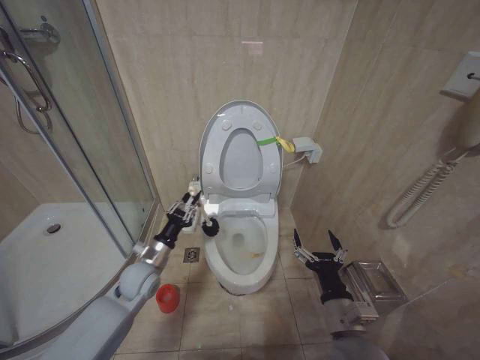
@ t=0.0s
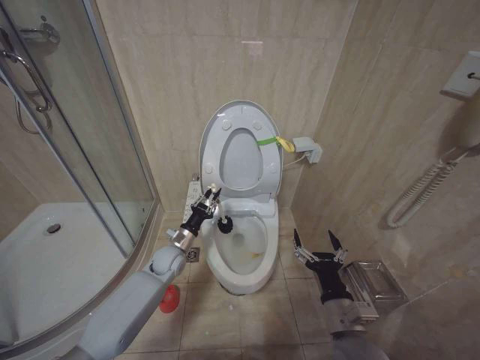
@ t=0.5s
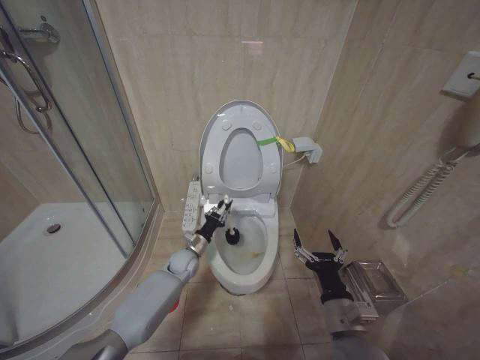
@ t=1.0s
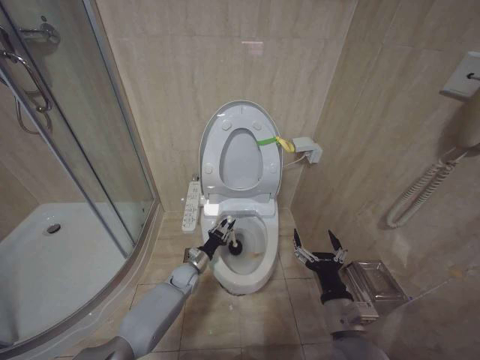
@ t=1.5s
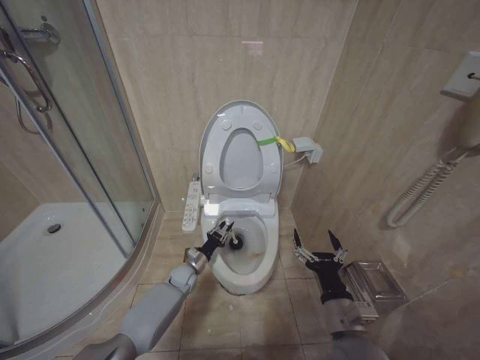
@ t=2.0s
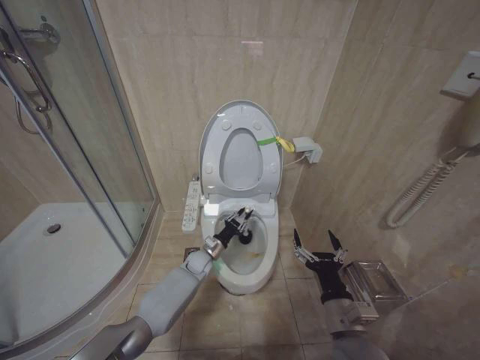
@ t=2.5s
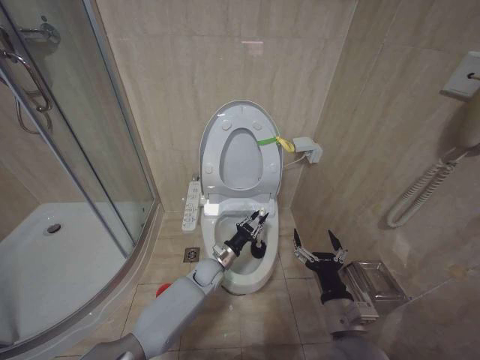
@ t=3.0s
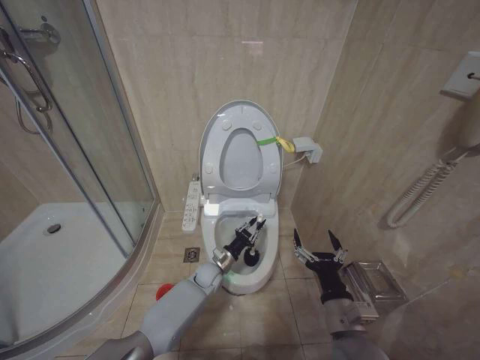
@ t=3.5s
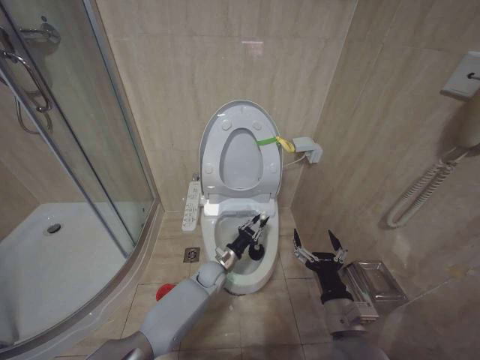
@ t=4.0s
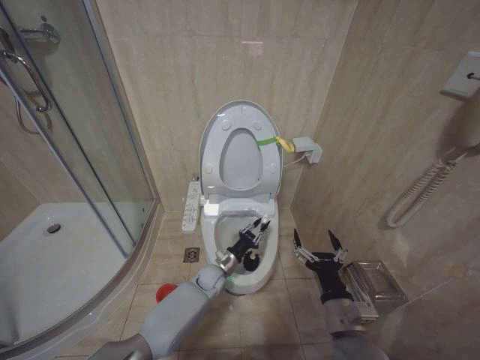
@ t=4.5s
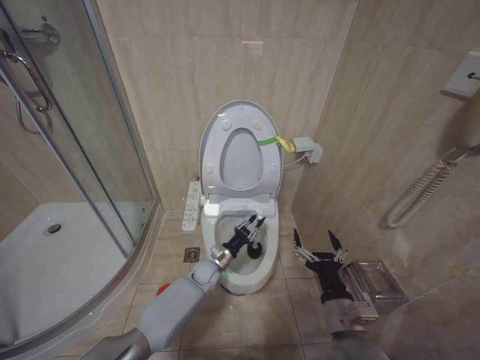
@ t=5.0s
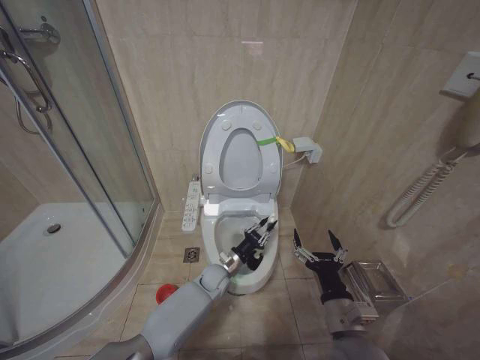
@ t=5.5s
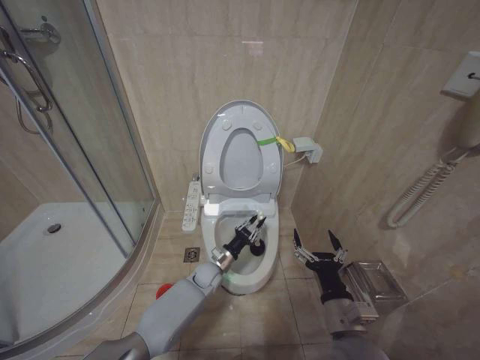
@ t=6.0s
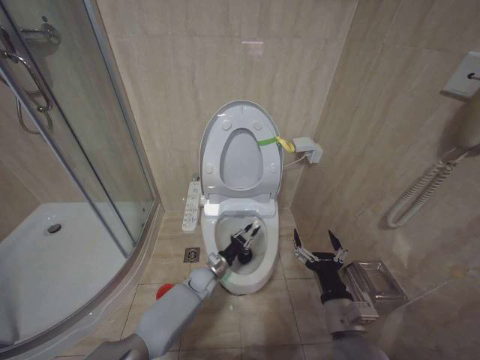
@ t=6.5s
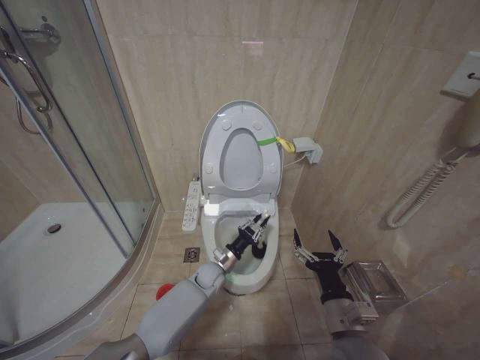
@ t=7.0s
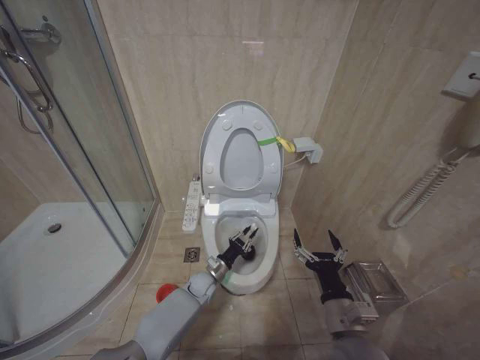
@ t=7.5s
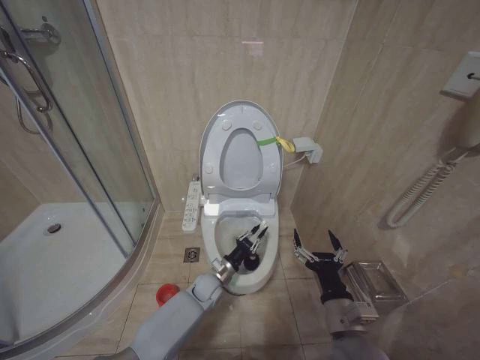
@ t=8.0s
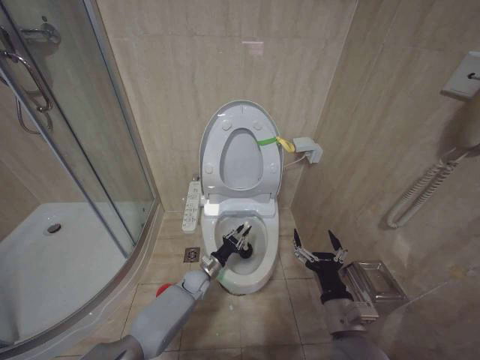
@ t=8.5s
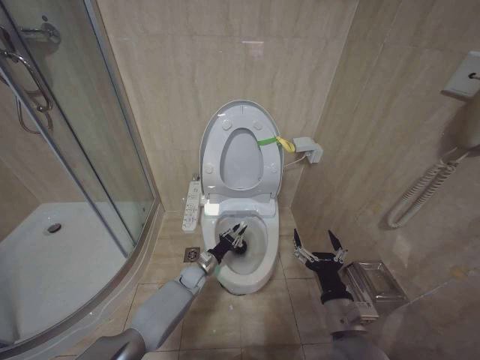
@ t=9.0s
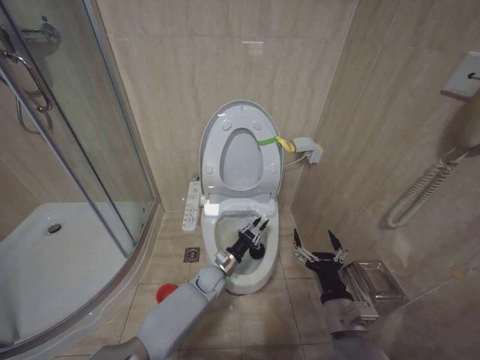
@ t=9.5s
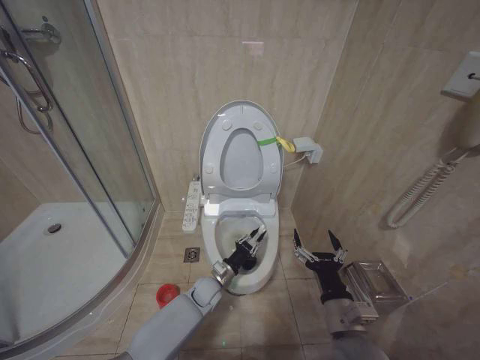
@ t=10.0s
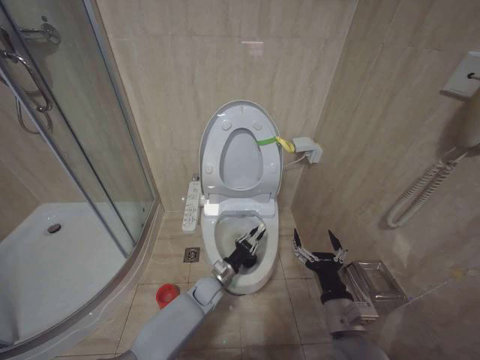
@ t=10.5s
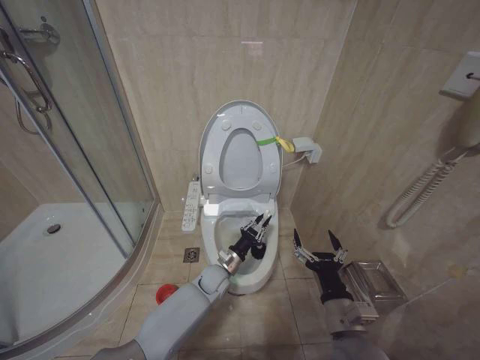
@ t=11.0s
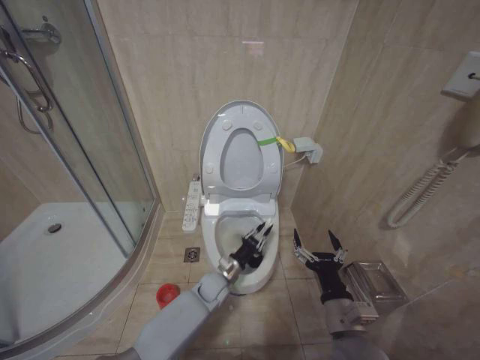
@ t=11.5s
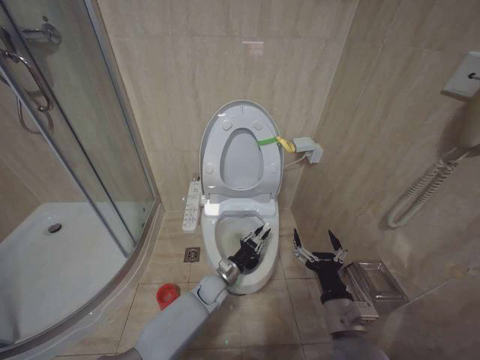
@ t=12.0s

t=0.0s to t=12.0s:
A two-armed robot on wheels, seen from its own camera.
Task of the whole recording: Open the toilet lid, clean the toilet bowl with a toilet brush, close the toilet lid, and flush.
t=0.0s to t=2.0s: The left gripper travels downward, forward and to the right by about 20 cm.
t=2.0s to t=4.0s: The left gripper heads to the right, covering some 10 cm.
t=4.0s to t=8.0s: There are only small adjustments of the grippers.
t=10.0s to t=12.0s: The grippers stay close to where they were, moving slightly.

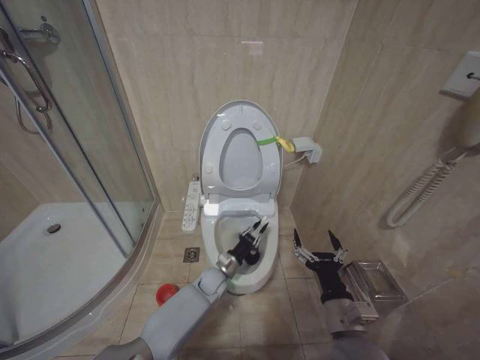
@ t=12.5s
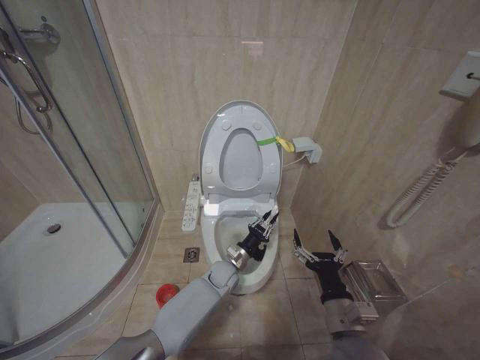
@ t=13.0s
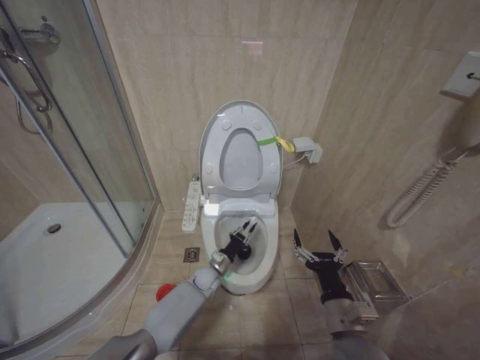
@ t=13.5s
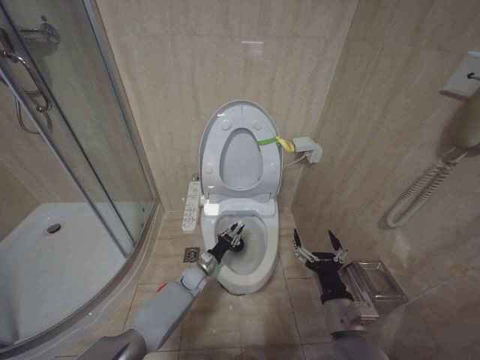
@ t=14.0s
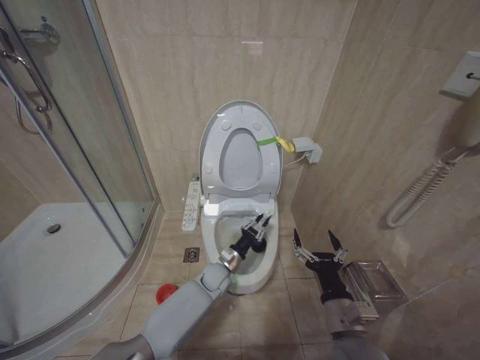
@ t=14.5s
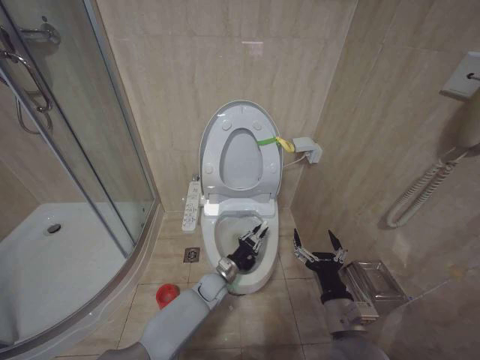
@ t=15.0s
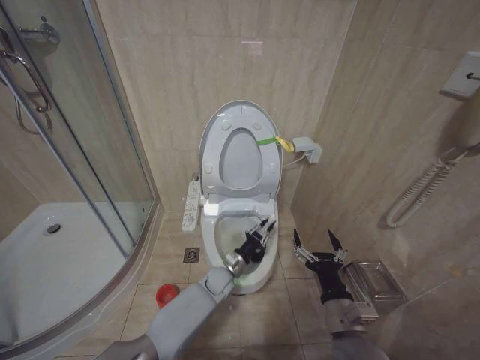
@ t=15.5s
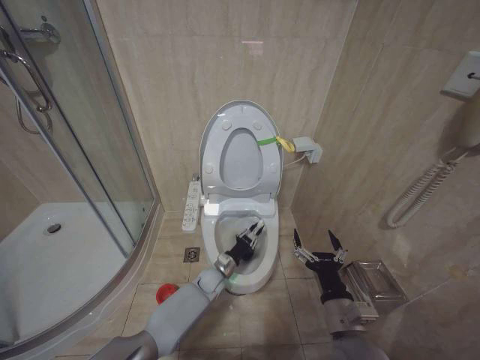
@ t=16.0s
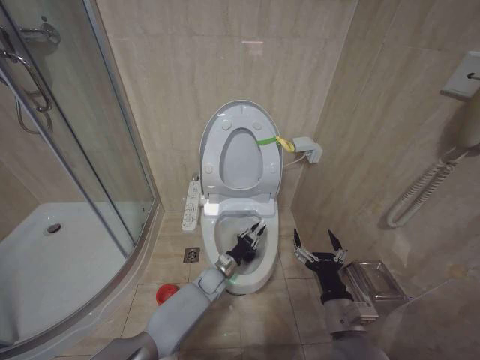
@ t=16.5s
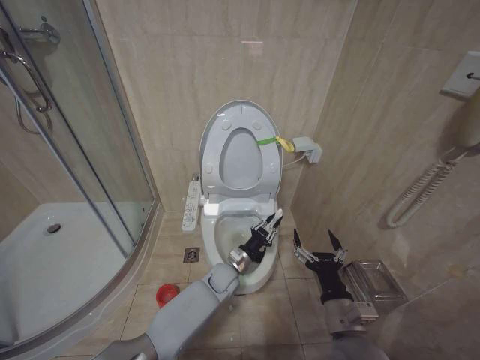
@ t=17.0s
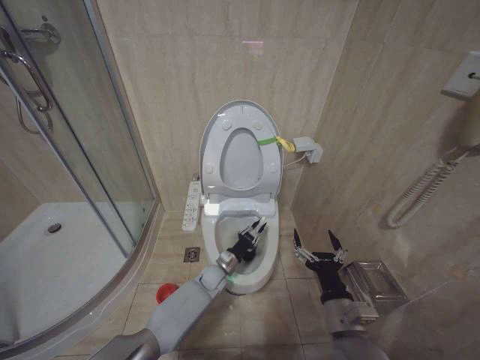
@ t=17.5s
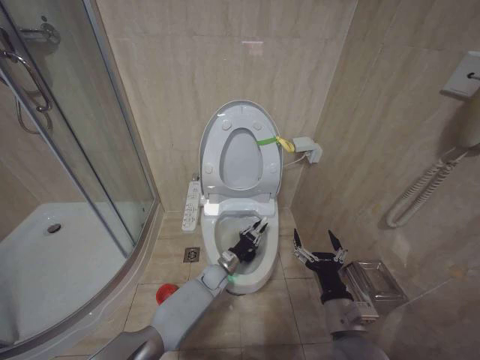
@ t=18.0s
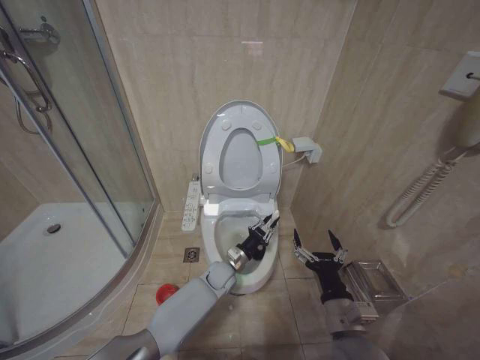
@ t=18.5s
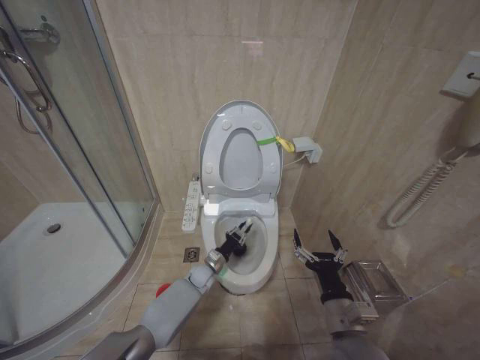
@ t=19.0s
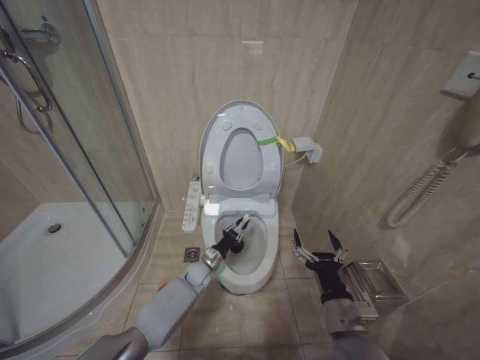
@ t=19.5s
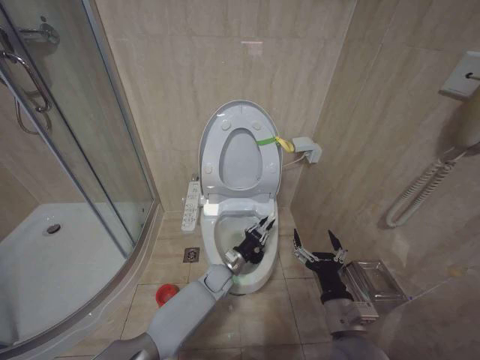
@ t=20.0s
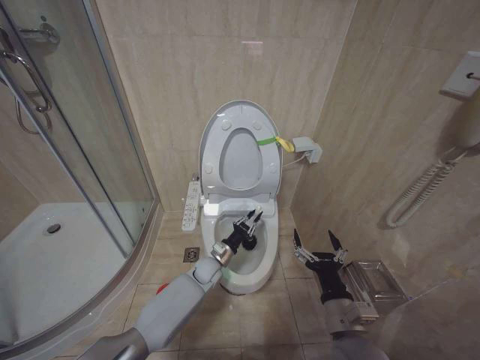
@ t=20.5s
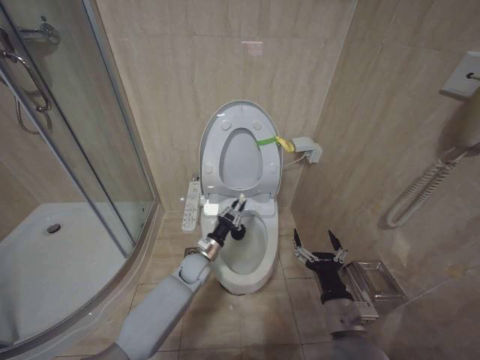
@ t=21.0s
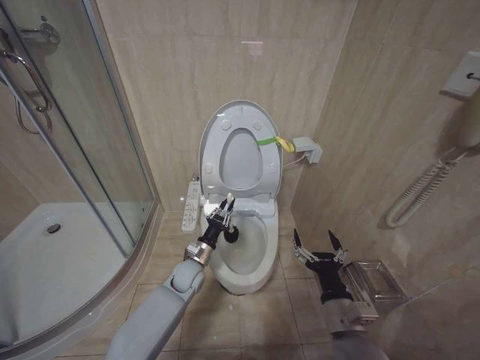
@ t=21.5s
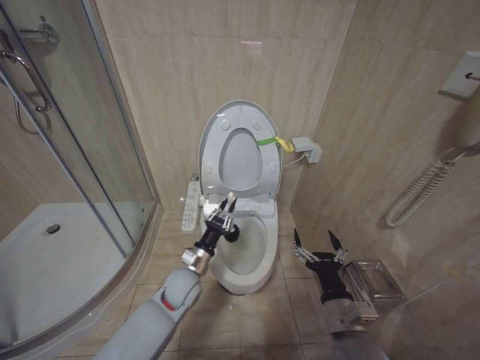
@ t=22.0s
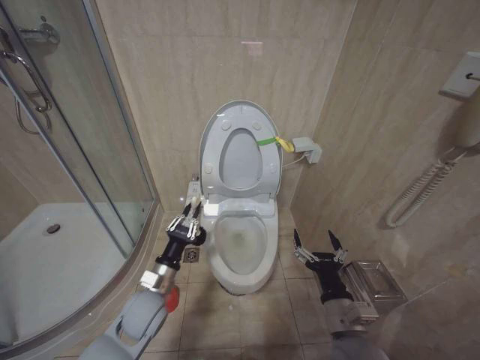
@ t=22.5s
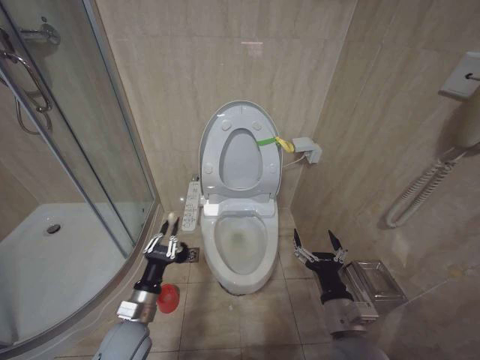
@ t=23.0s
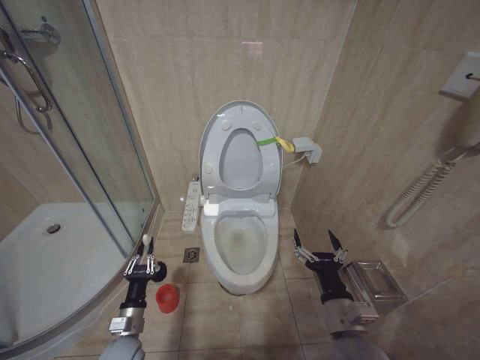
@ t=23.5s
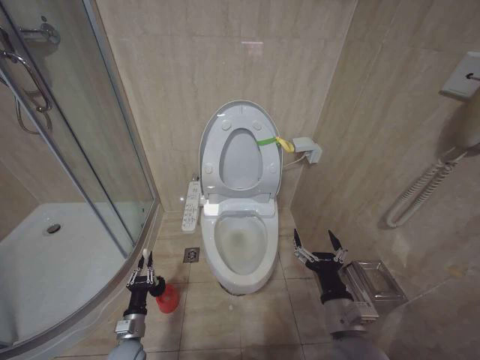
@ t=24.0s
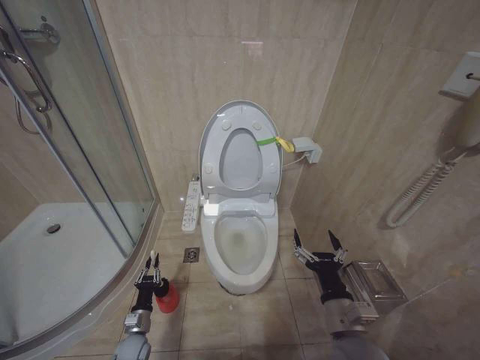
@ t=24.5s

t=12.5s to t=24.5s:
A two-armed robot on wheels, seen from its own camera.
Task of the whole recording: Open the toilet lid, clean the toilet bowl with a toilet brush, close the toilet lid, and flush.
t=12.5s to t=14.5s: The left gripper goes to the left and returns, roughly 10 cm each way.
t=14.5s to t=16.5s: There are only small adjustments of the grippers.
t=16.5s to t=18.5s: The left gripper goes up and down, approximately 5 cm each way, reversing 2 times.
t=18.5s to t=20.5s: The left gripper moves left and right over about 10 cm, changing direction 2 times.
t=20.5s to t=22.5s: The left gripper heads backward, to the left and upward, covering some 20 cm.
t=22.5s to t=24.5s: The left gripper is displaced downward and to the left by roughly 25 cm.

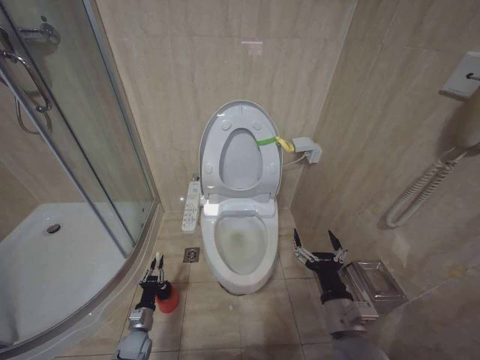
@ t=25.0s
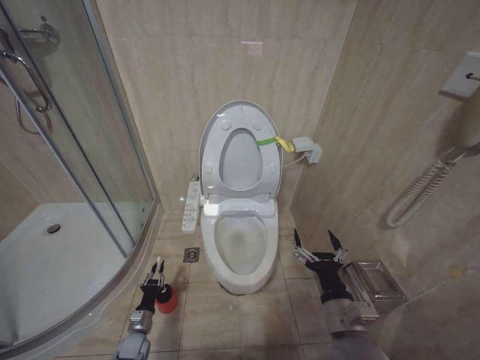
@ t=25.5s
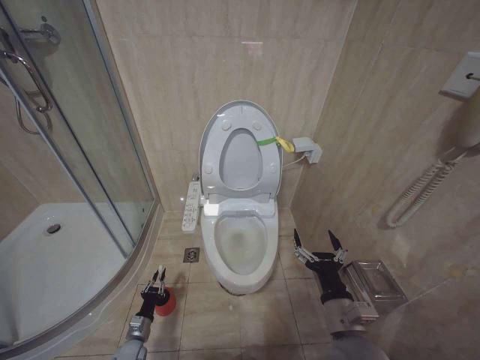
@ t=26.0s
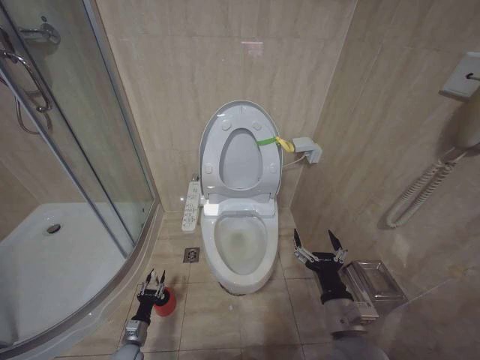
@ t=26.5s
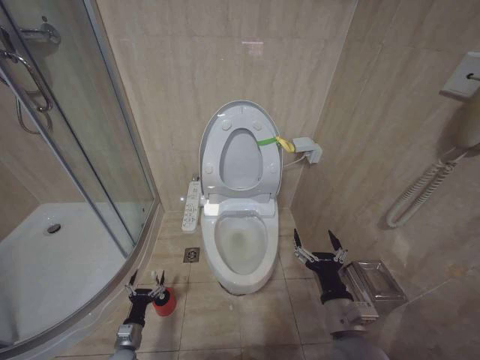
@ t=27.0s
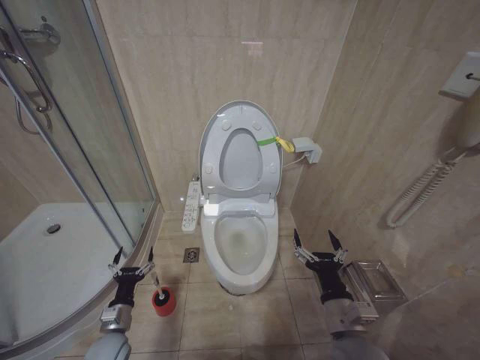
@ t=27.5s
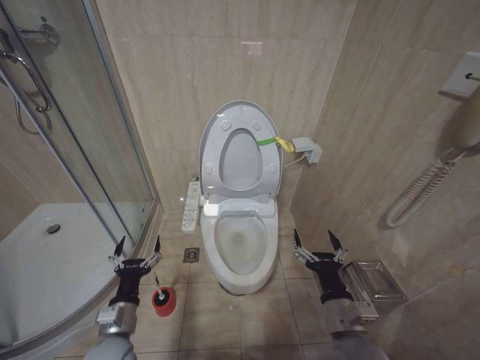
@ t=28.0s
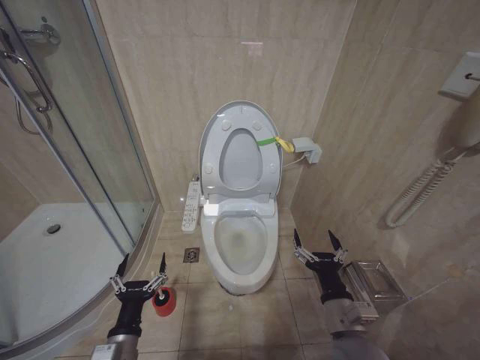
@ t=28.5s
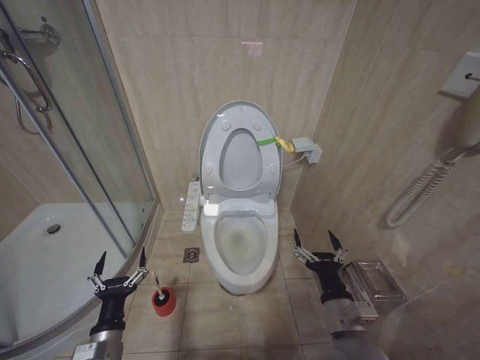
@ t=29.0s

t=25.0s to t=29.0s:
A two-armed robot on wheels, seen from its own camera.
Task of the whole recording: Open the toilet lid, clean the toilet bowl with a toilet brush, close the toilet lid, and flush.
t=25.0s to t=27.0s: The left gripper ends up roughly 5 cm from where it was, and opens up.
t=27.0s to t=29.0s: The left gripper shifts roughly 25 cm upward.
